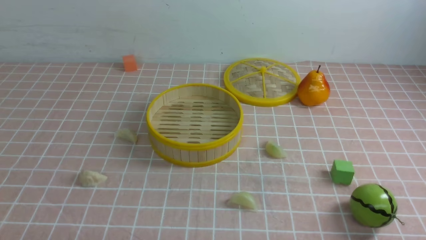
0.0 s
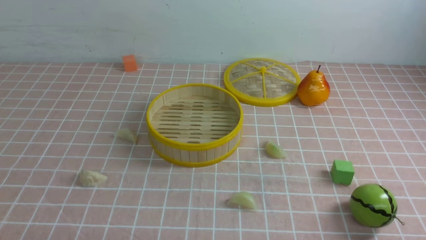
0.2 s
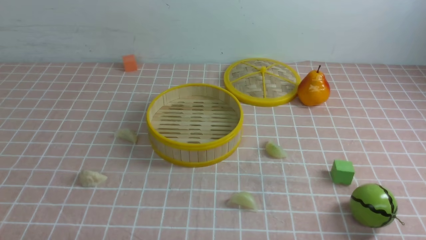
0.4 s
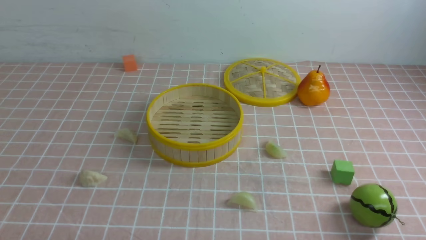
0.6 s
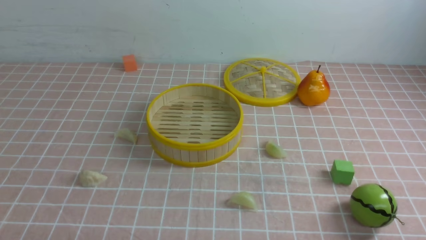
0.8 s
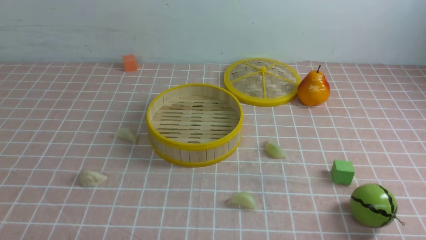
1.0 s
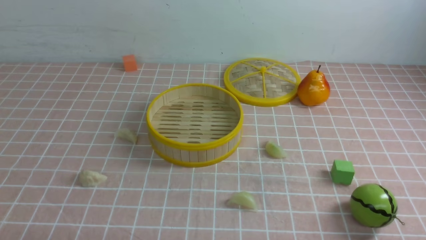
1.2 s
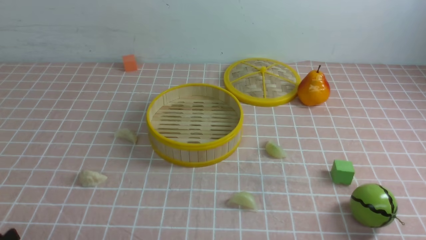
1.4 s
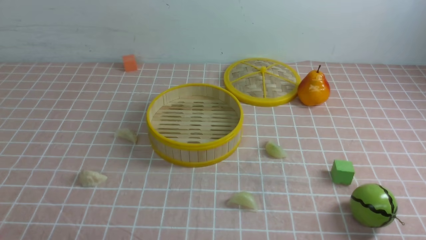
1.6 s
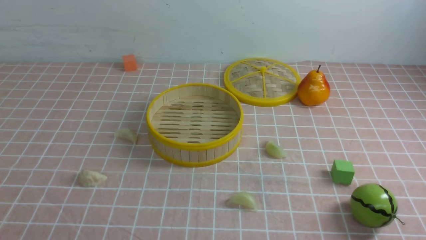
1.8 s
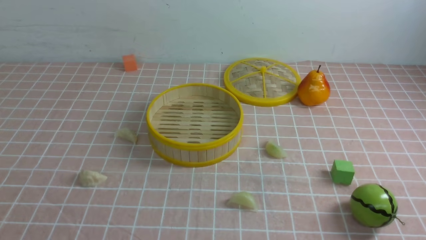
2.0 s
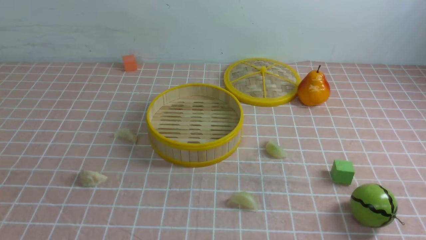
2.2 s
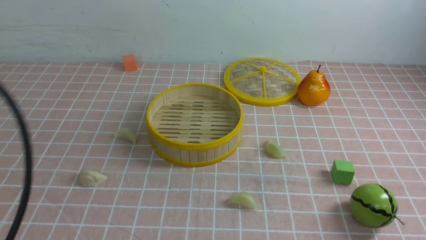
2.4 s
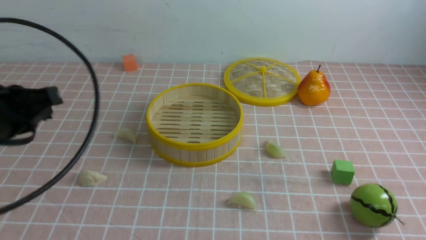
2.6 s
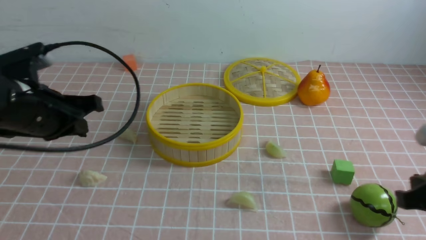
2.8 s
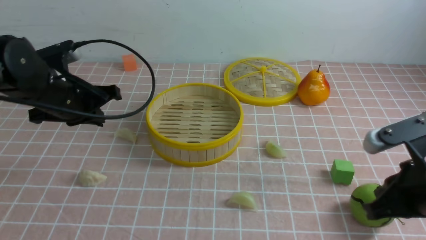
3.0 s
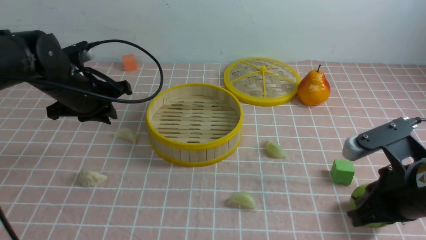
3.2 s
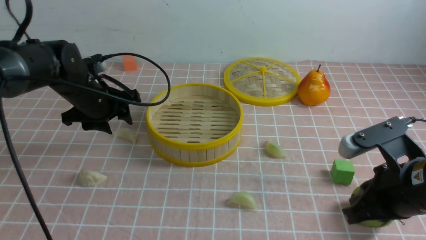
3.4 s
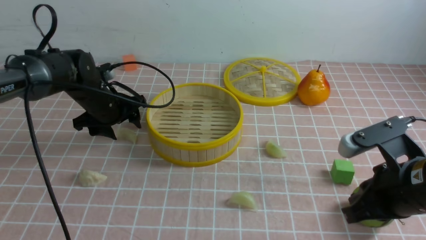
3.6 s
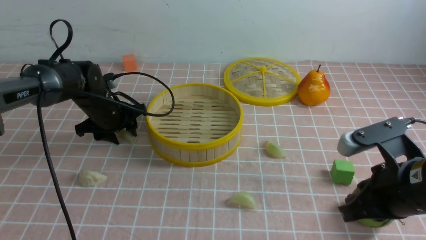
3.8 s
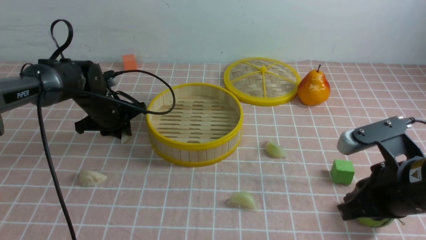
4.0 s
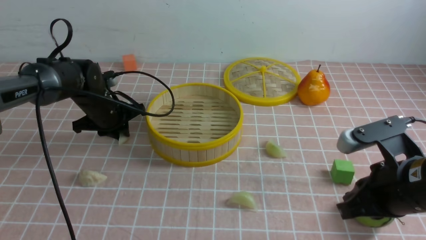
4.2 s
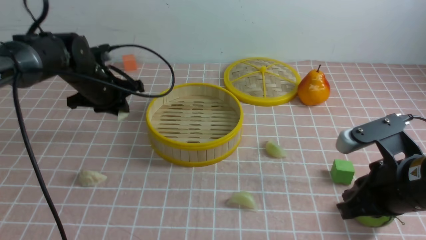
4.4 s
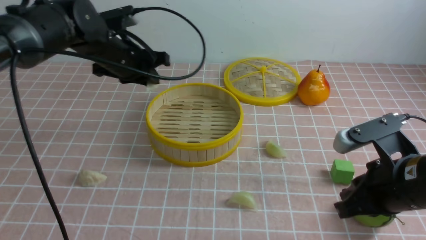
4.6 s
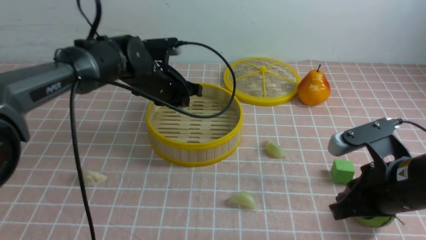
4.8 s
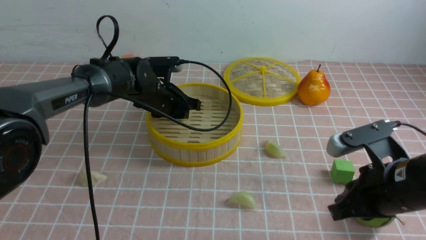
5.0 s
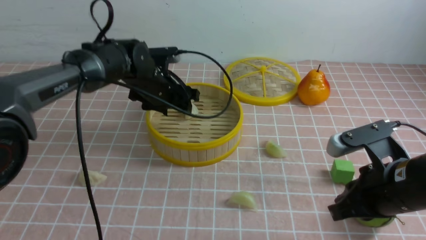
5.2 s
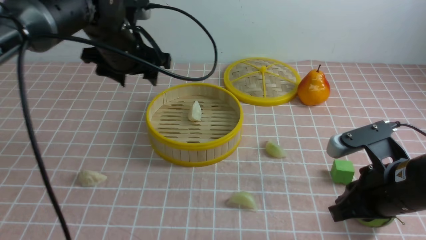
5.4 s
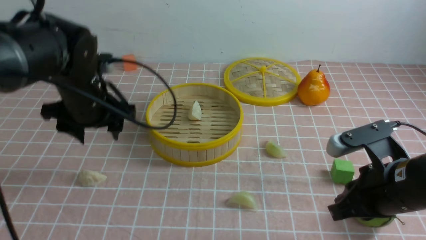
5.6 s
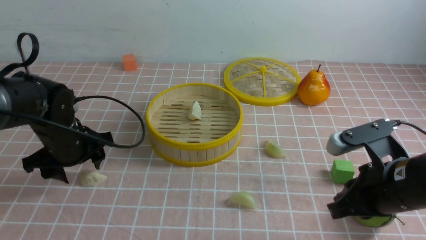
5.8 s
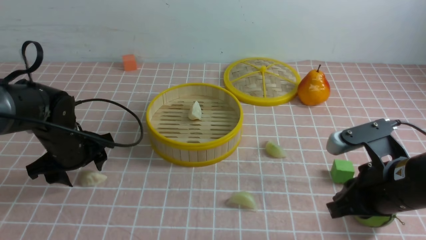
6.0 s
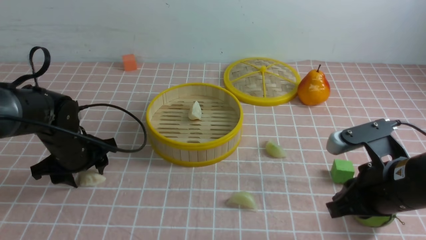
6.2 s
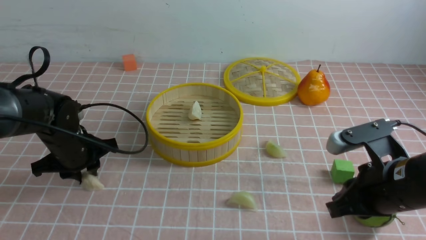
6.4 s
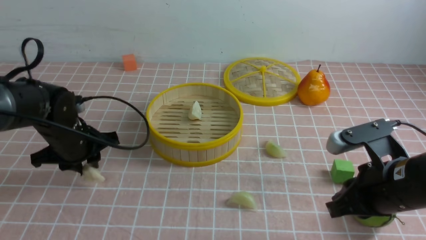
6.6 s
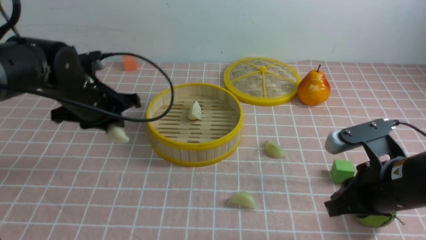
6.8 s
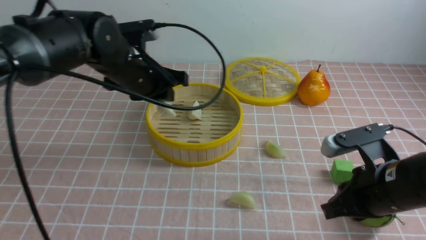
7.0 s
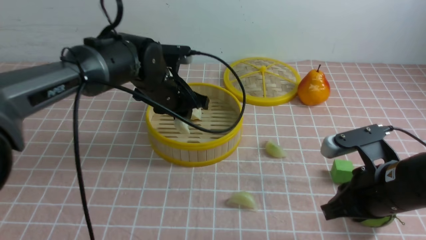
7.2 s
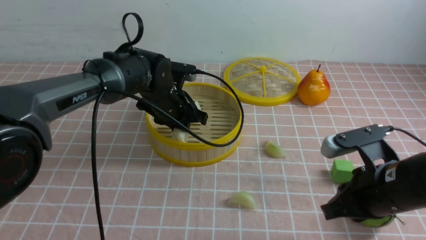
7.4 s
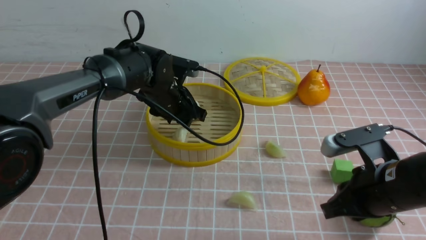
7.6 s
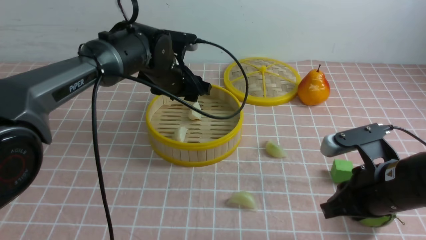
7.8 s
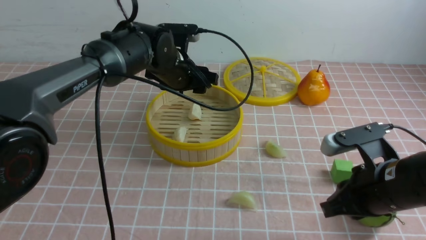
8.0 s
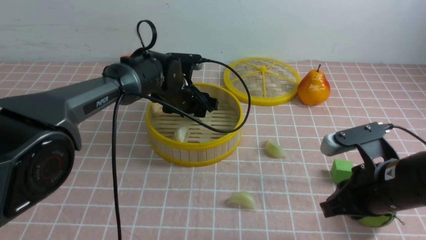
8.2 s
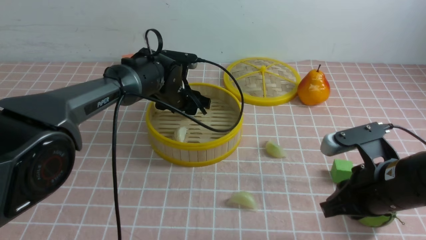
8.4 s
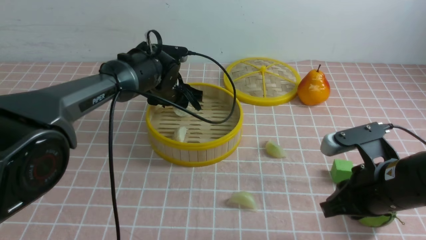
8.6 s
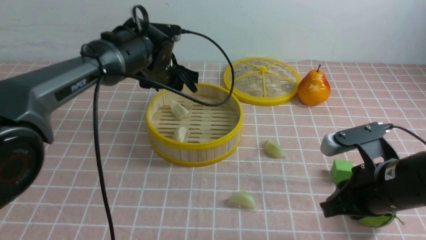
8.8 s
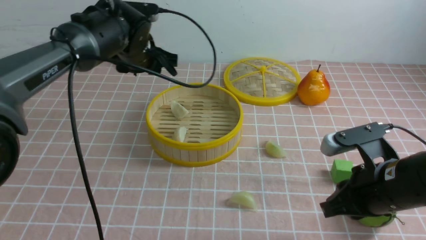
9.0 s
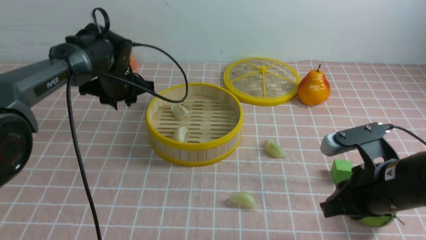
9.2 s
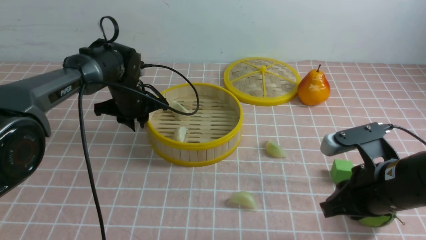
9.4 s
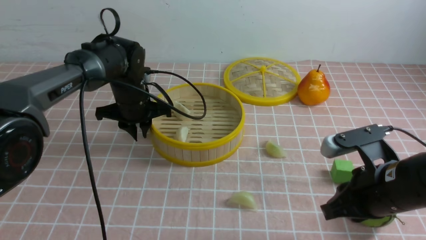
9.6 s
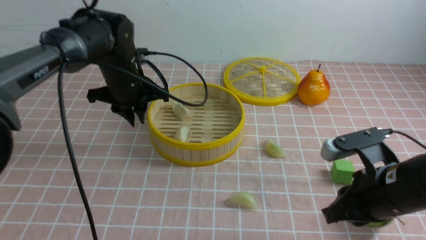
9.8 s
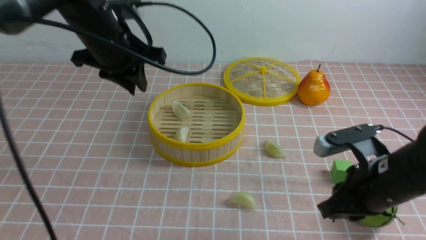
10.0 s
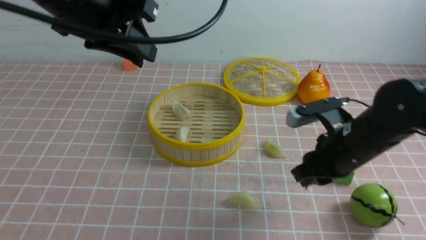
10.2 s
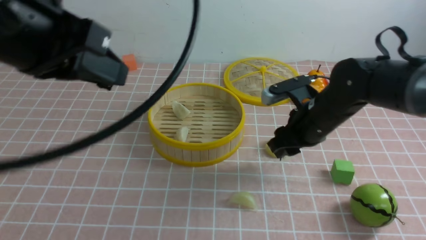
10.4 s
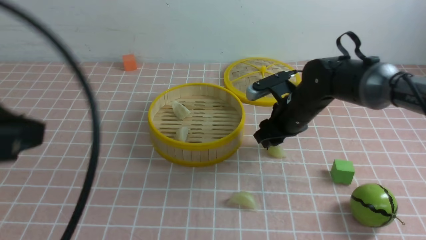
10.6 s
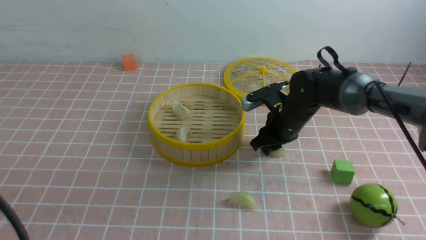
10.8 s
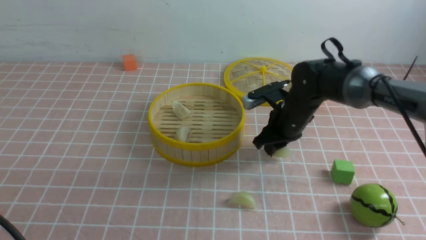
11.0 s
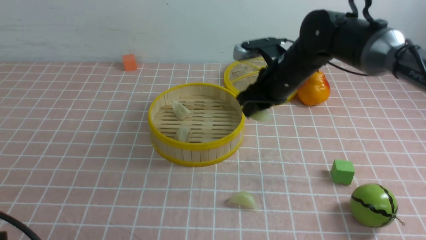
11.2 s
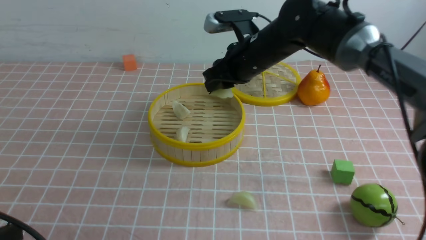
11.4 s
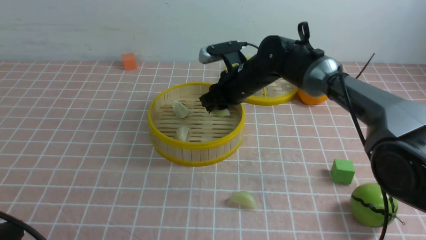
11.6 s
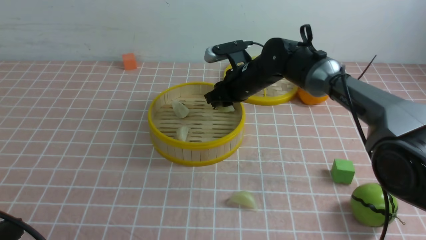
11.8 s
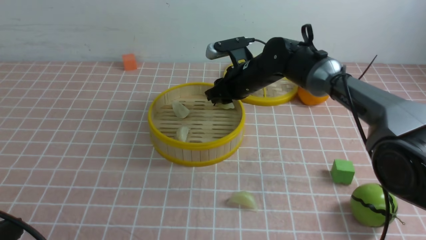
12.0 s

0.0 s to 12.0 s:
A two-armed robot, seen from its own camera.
Task of the whole recording: put the dumplings into the steamer on the table with the pink tablecloth.
Step, 0.0 to 4.2 s: use the left arm to grab a dumpling.
Step, 4.4 to 5.2 s: use the left arm to put the dumpling into the steamer.
Step, 5.4 to 6.6 s: use the left arm to grab a dumpling.
Step, 6.8 to 7.6 s: use the left arm to put the dumpling into the steamer.
Step, 7.8 to 10.8 s: use the right arm to grab a dumpling.
Step, 11.2 to 12.0 s: use the right arm to put the dumpling into the steamer.
1.6 to 3.0 s: The right gripper moves forward and upward, about 15 cm, while the left gripper heads forward, covering about 25 cm, and closes.
3.0 to 4.4 s: The left gripper goes some 15 cm forward and downward, and opens, then closes again.
4.4 to 6.0 s: The left gripper travels backward by roughly 10 cm, travels to the right and back again, roughly 10 cm each way, and opens up.
6.0 to 7.6 s: The left gripper is displaced to the right and forward by roughly 15 cm, and closes its fingers.
7.6 to 9.0 s: The left gripper shifts by some 5 cm.
9.0 to 10.4 s: The left gripper is displaced backward and upward by roughly 30 cm. The right gripper heads forward, covering about 10 cm, and opens its fingers.
10.4 to 12.0 s: The right gripper is displaced forward and to the left by some 20 cm, while the left gripper heads downward, backward and to the left, covering approximately 25 cm, and closes its fingers.

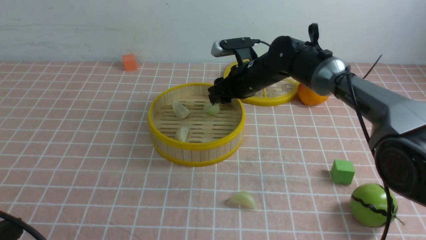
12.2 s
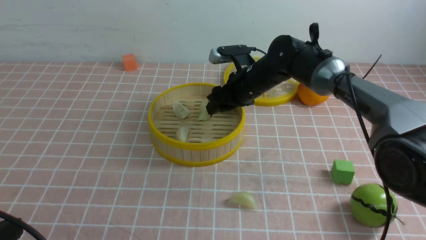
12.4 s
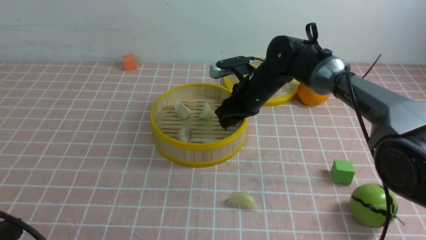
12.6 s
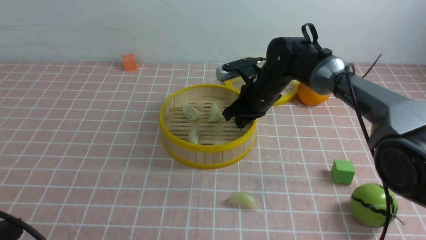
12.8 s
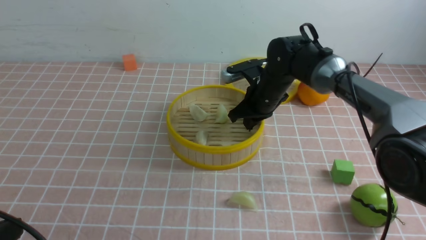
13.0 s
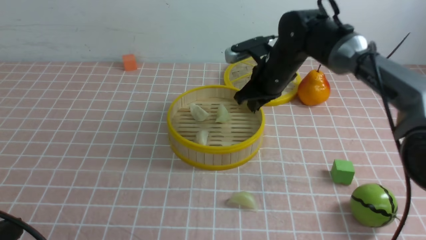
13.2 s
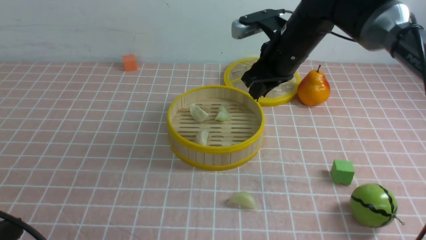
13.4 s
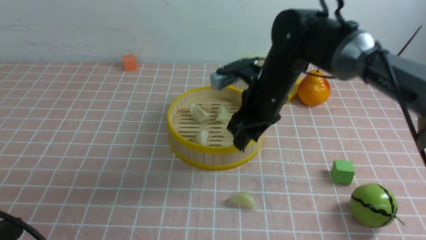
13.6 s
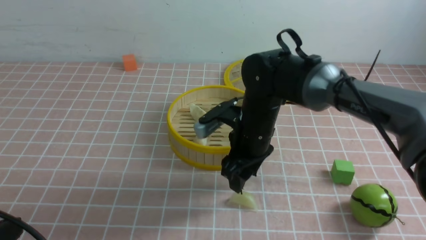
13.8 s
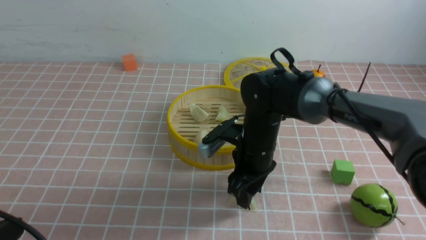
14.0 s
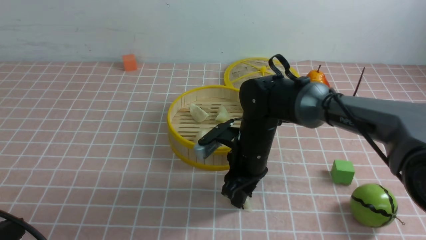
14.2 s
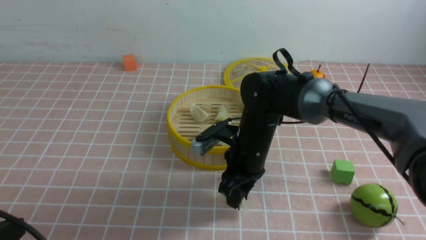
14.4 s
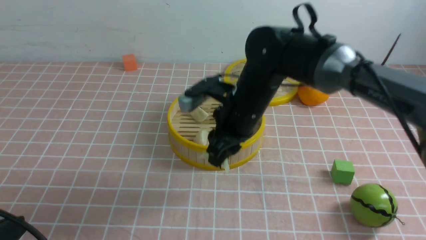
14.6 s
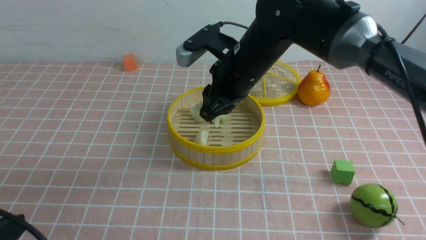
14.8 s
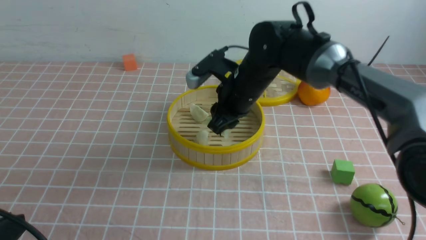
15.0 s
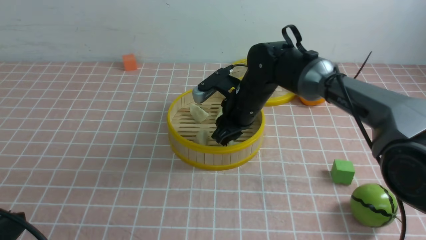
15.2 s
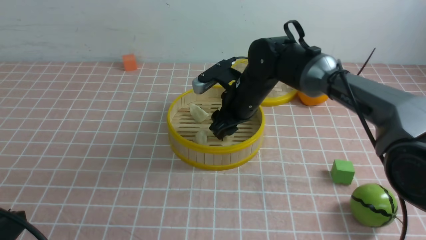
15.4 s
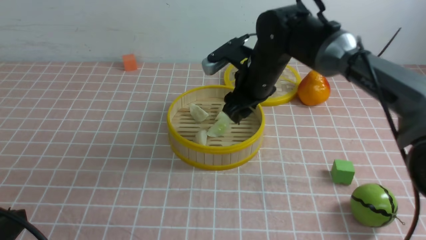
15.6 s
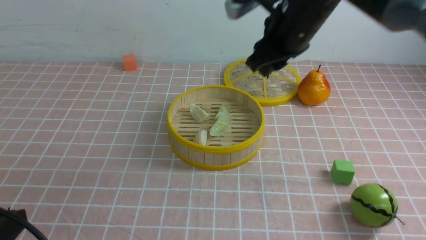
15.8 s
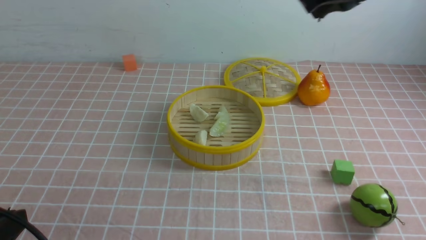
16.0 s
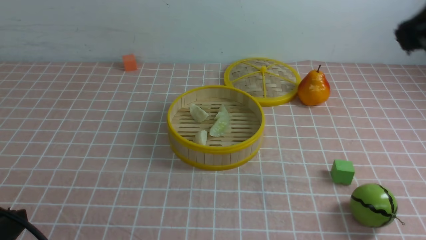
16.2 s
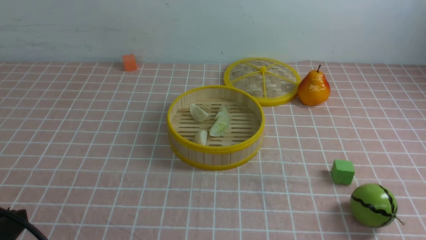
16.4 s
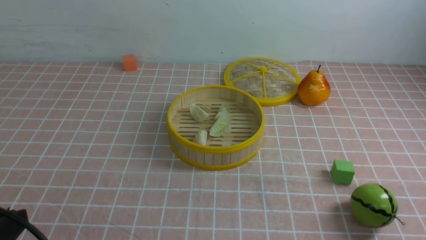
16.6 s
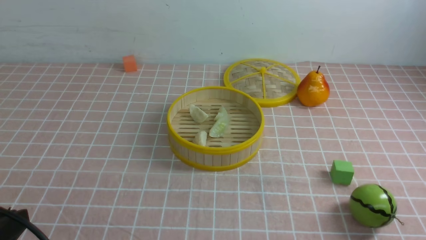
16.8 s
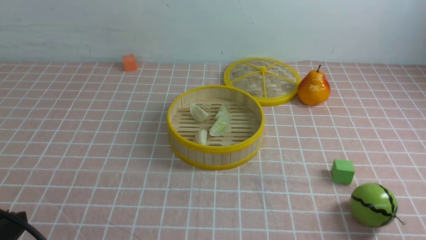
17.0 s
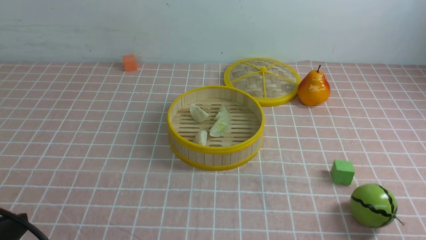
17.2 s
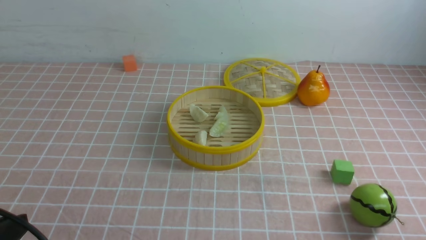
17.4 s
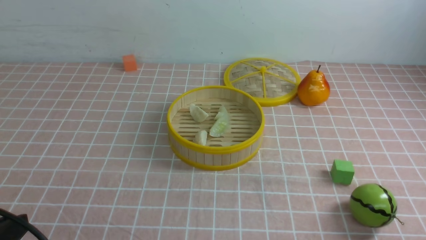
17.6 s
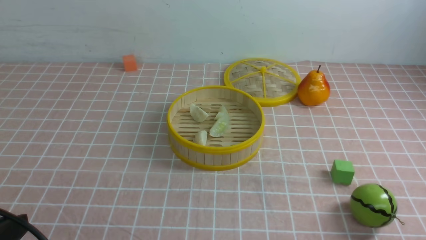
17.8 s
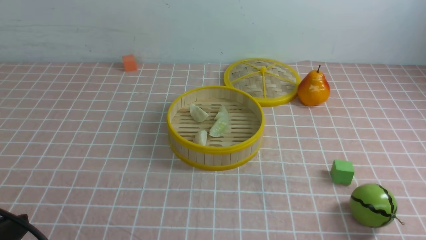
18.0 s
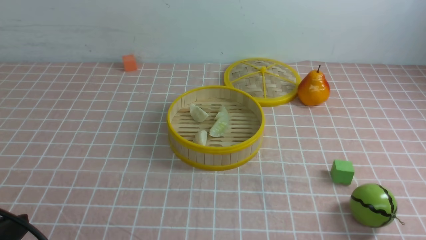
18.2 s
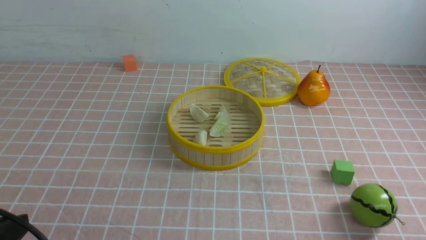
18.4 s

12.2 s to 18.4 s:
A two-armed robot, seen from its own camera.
Task of the whole recording: put the dumplings into the steamer on the table with the pink tablecloth.
Step, 12.2 to 14.2 s: use the right arm to grab a dumpling.
Step, 14.6 to 15.4 s: use the right arm to put the dumpling into the steamer.
12.2 to 13.8 s: The right gripper heads backward, covering about 10 cm, and closes, then reopens.
13.8 to 15.4 s: The right gripper goes up and down, roughly 10 cm each way, reversing 2 times.
15.4 to 16.8 s: The right gripper goes roughly 50 cm backward and to the right, and closes.
